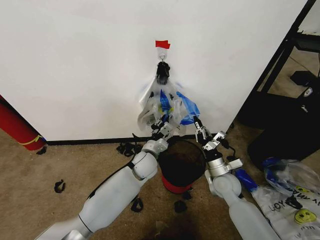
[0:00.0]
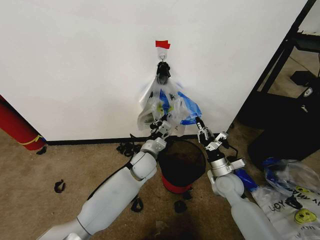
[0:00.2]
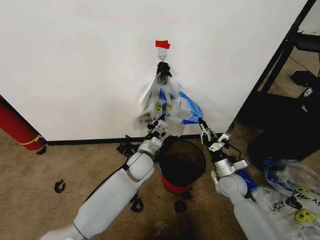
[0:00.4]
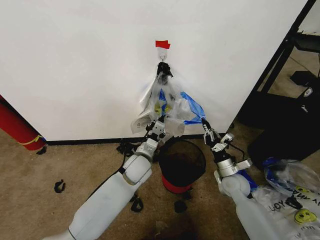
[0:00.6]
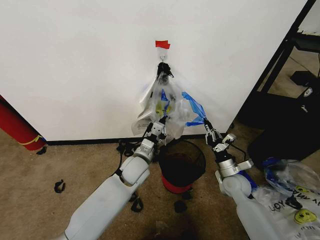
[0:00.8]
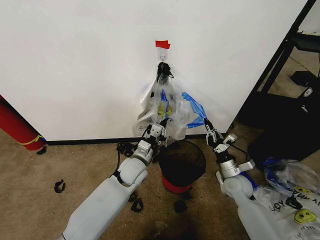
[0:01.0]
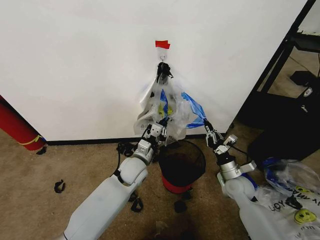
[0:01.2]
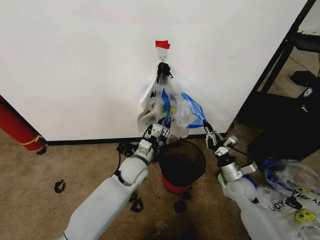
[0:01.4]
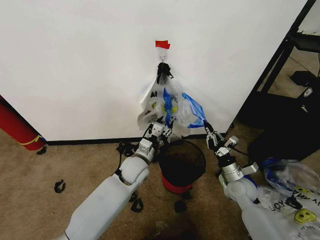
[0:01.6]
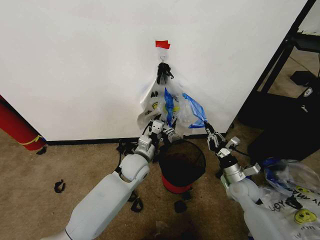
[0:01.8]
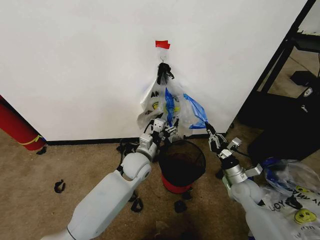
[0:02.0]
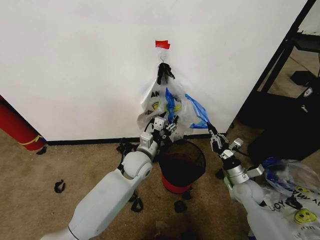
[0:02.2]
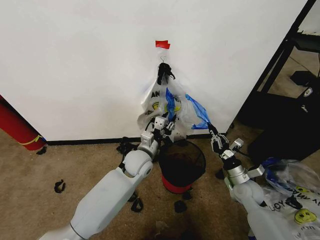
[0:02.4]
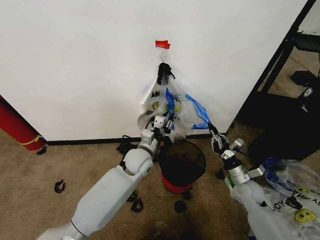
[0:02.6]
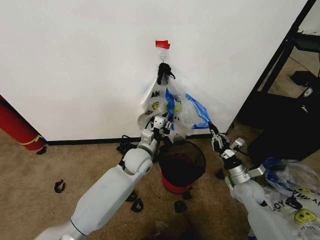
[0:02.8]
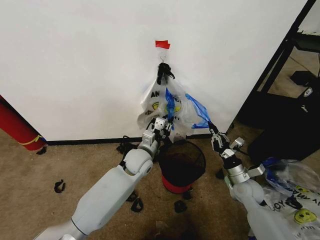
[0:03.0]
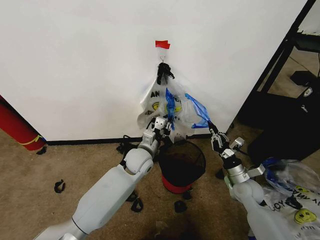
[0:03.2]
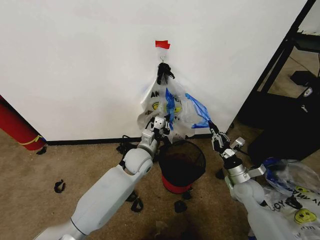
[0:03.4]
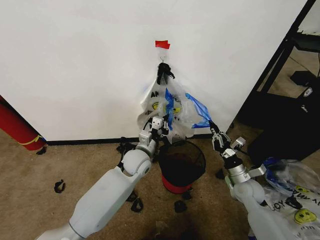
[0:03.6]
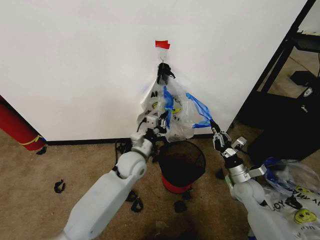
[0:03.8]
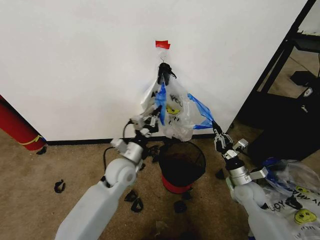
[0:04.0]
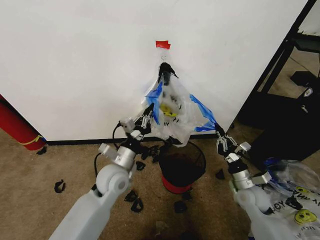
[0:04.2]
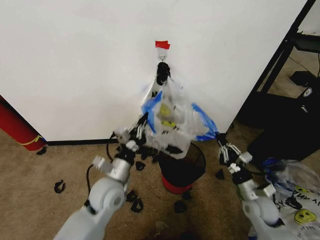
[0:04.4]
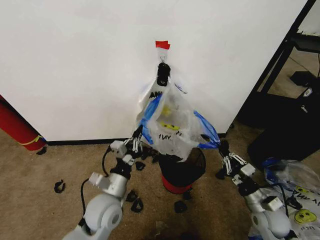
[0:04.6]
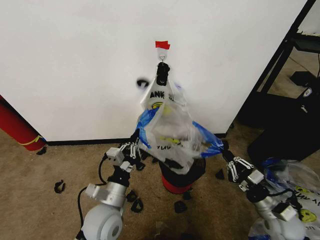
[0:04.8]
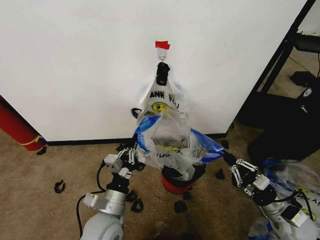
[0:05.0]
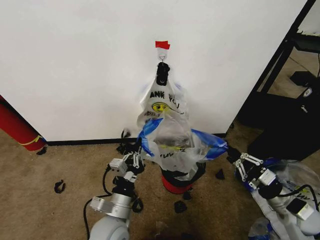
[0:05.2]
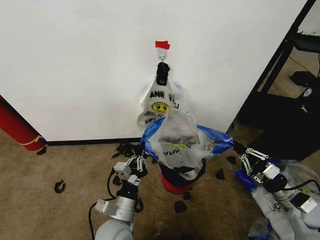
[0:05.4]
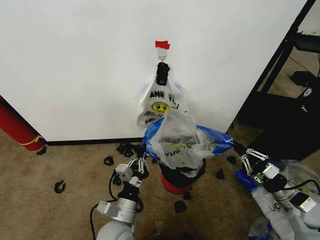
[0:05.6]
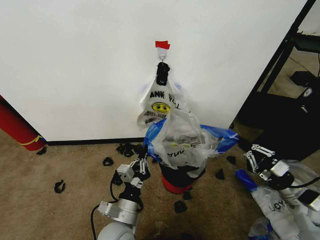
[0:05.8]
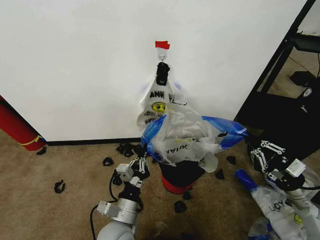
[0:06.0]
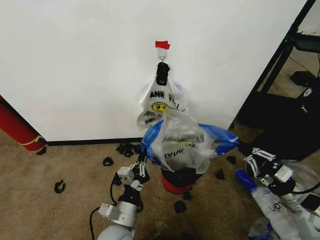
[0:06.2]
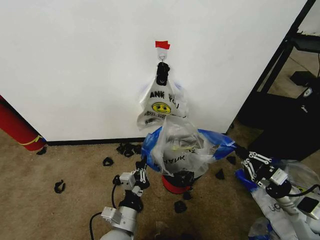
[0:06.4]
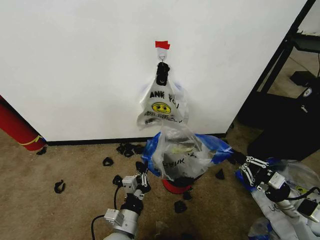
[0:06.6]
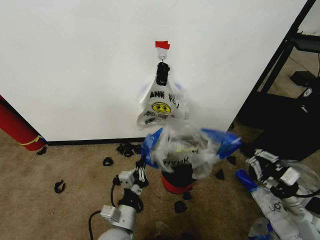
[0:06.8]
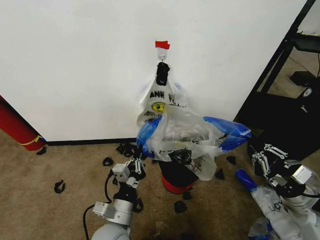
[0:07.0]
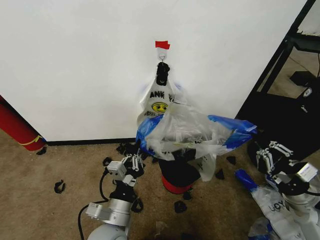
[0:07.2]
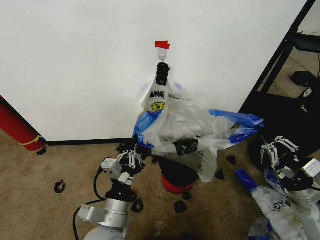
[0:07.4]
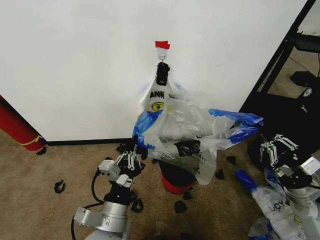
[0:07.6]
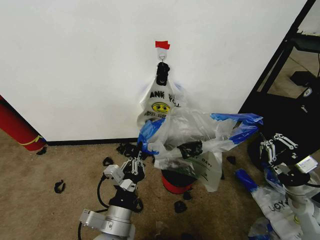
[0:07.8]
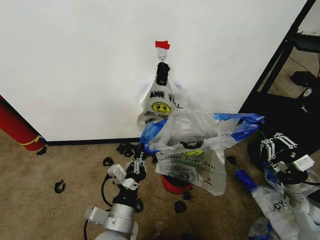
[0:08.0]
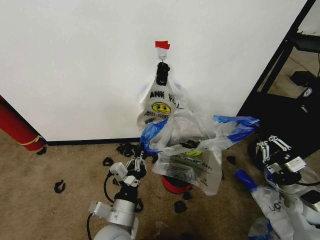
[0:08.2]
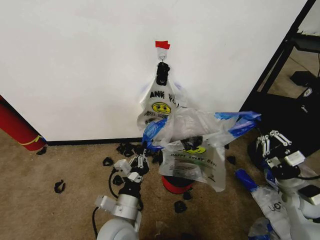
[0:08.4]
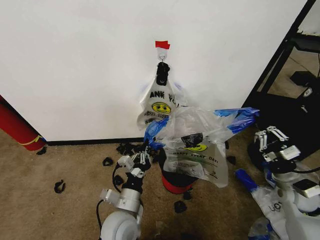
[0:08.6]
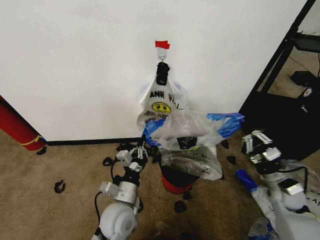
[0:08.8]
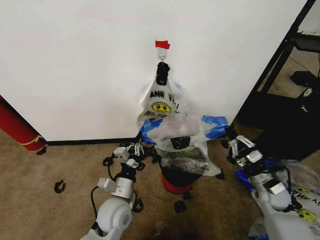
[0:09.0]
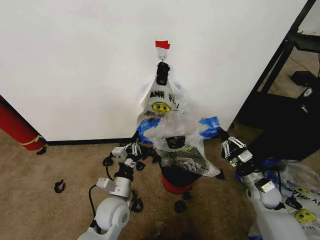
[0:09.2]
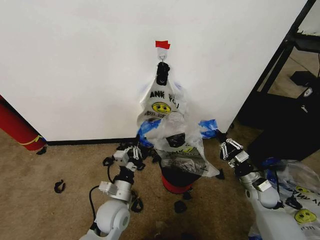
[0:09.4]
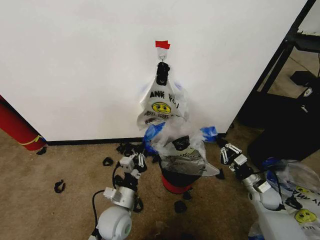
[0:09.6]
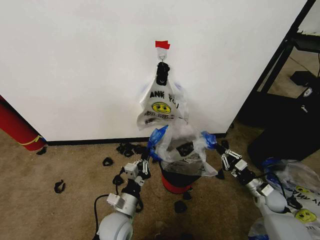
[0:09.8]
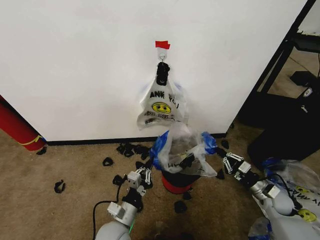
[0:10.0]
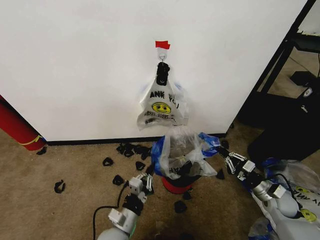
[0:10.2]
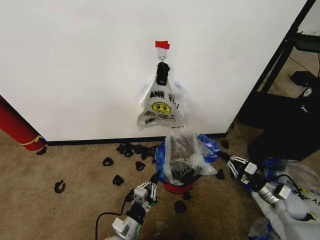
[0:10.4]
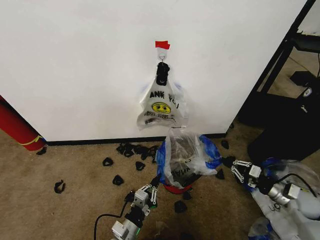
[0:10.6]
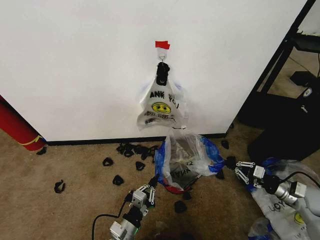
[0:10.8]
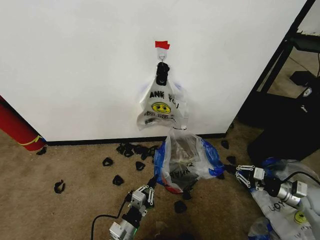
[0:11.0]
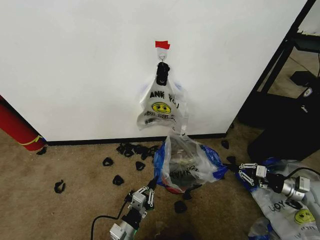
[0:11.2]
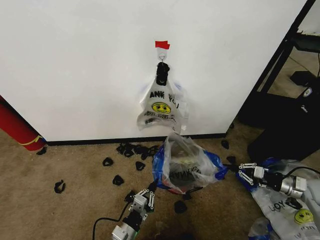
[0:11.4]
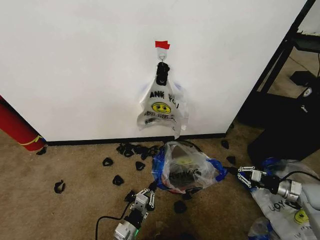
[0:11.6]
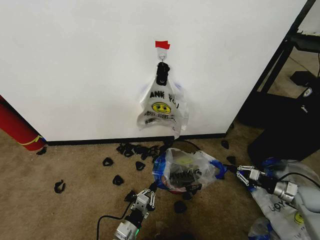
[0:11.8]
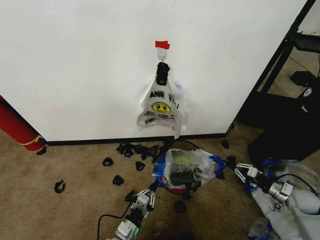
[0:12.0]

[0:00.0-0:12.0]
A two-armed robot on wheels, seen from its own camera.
Task of the whole recording: Pick up the garbage bag from the wall and place it over the trash bin.
0:00.0 to 0:01.6: The left gripper opens up. The right gripper moves to the right, about 5 cm.
0:01.6 to 0:03.0: There are only small adjustments of the grippers.
0:03.0 to 0:04.4: The right gripper goes some 5 cm backward, while the left gripper moves backward and to the left, approximately 15 cm.
0:04.4 to 0:06.0: The right gripper is displaced upward and to the right by some 15 cm; the left gripper shifts about 10 cm backward.
0:06.0 to 0:07.6: The left gripper heads upward, covering about 5 cm.
0:07.6 to 0:09.0: The right gripper is displaced downward and forward by roughly 10 cm. The left gripper shifts roughly 10 cm forward and downward.
0:09.0 to 0:10.4: The right gripper shifts some 5 cm to the right. The left gripper travels backward and downward by roughly 10 cm.
0:10.4 to 0:12.0: The left gripper shifts by roughly 5 cm. The right gripper goes roughly 5 cm to the right.

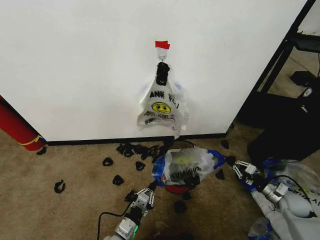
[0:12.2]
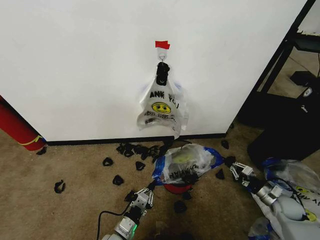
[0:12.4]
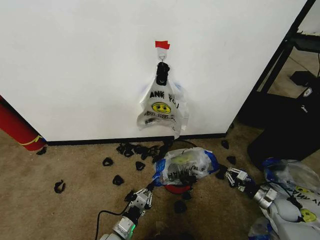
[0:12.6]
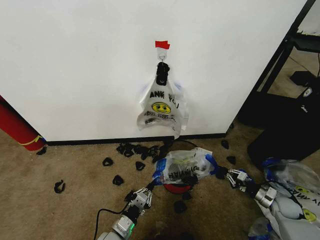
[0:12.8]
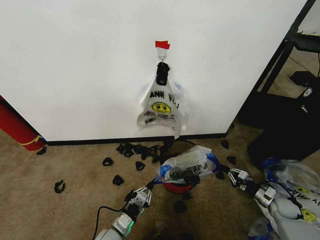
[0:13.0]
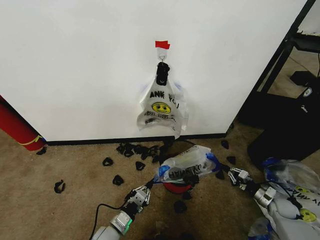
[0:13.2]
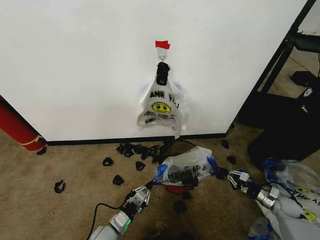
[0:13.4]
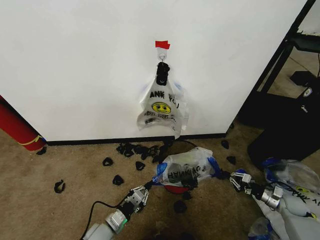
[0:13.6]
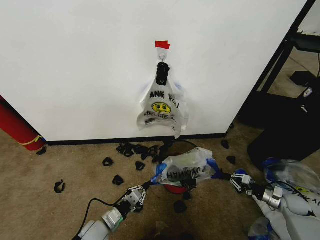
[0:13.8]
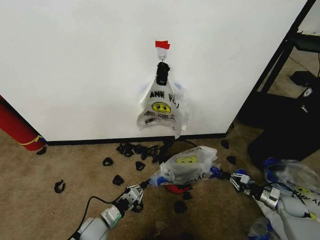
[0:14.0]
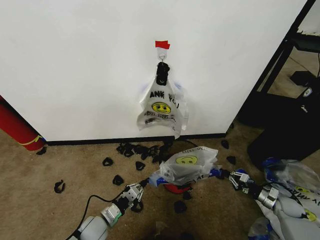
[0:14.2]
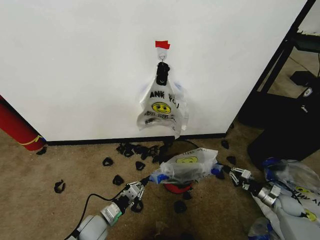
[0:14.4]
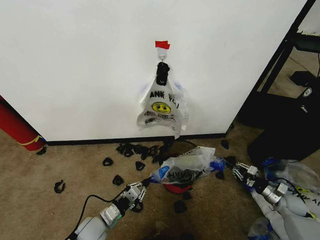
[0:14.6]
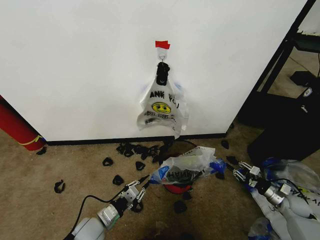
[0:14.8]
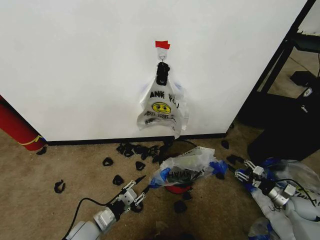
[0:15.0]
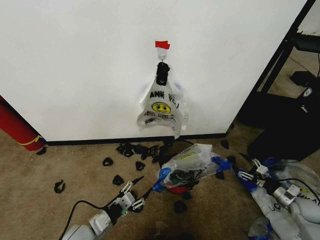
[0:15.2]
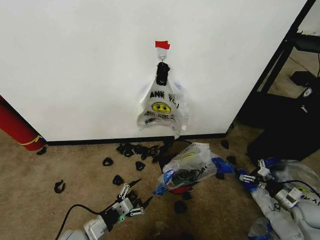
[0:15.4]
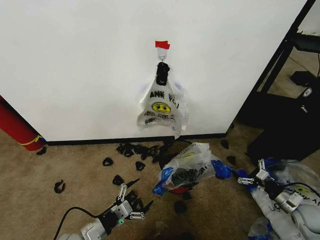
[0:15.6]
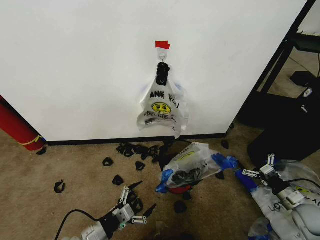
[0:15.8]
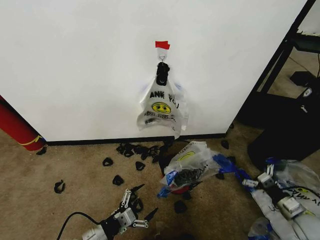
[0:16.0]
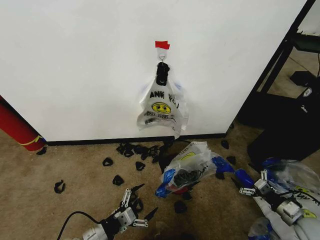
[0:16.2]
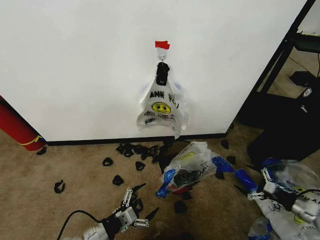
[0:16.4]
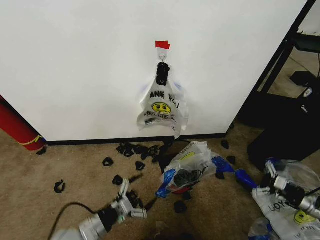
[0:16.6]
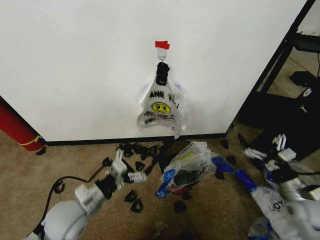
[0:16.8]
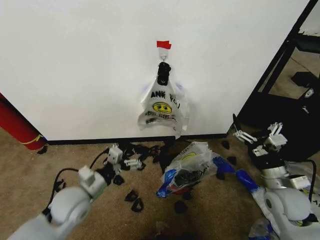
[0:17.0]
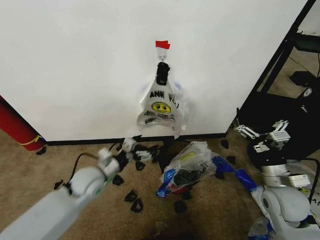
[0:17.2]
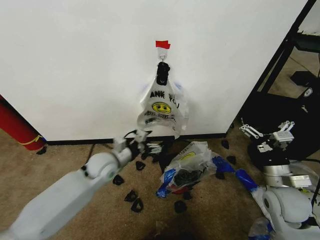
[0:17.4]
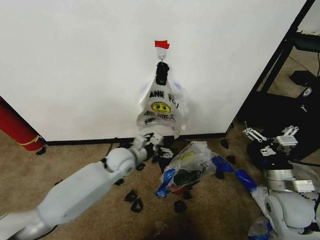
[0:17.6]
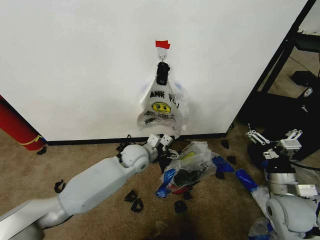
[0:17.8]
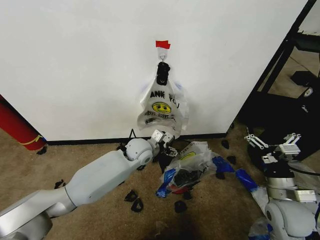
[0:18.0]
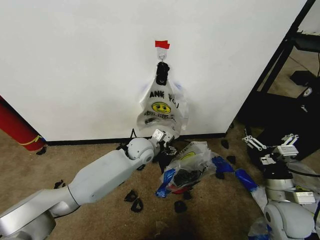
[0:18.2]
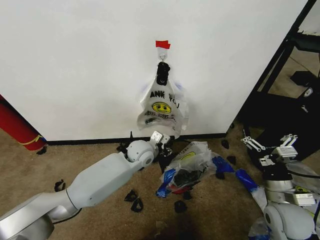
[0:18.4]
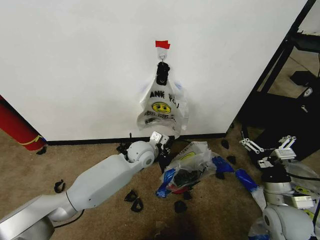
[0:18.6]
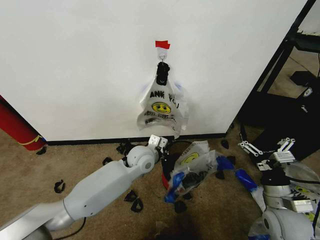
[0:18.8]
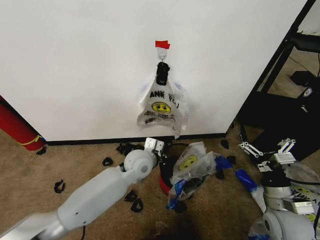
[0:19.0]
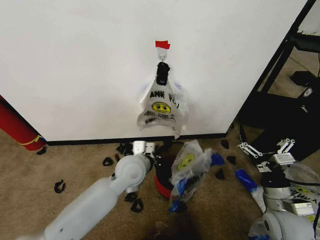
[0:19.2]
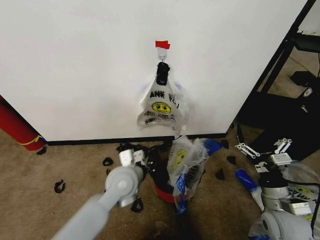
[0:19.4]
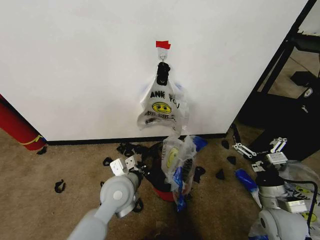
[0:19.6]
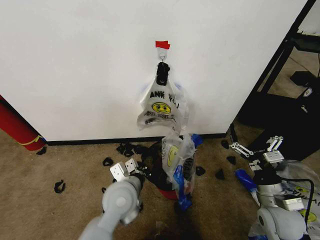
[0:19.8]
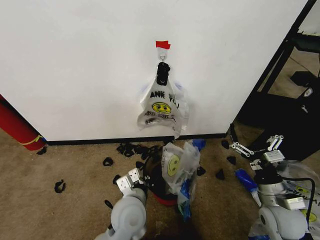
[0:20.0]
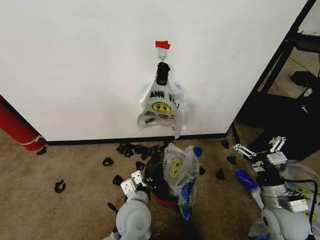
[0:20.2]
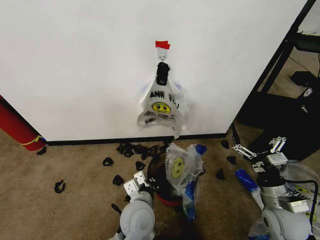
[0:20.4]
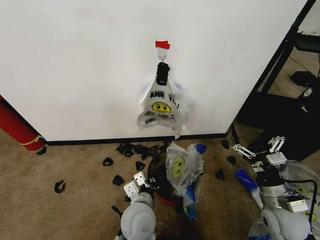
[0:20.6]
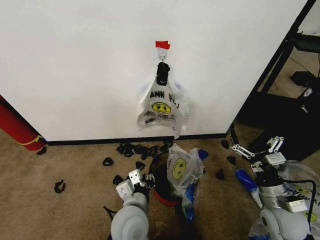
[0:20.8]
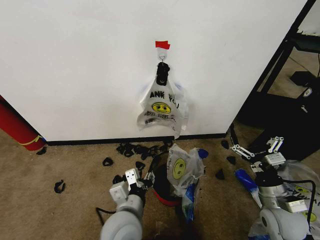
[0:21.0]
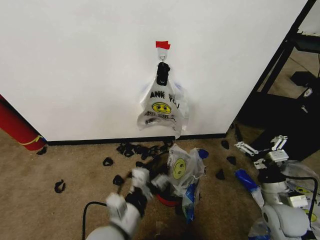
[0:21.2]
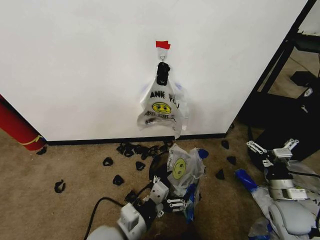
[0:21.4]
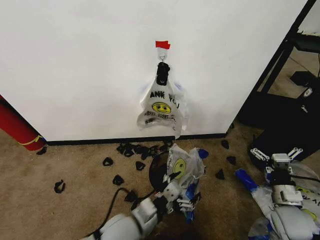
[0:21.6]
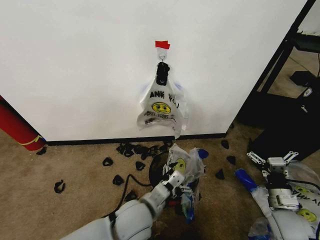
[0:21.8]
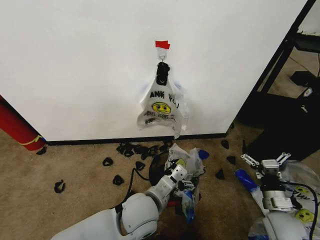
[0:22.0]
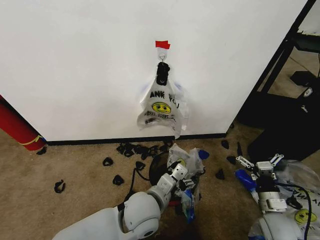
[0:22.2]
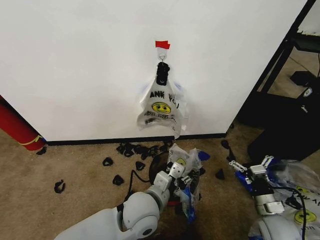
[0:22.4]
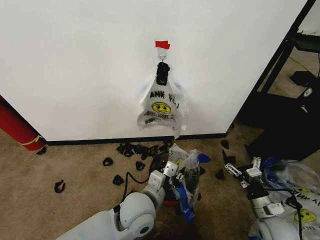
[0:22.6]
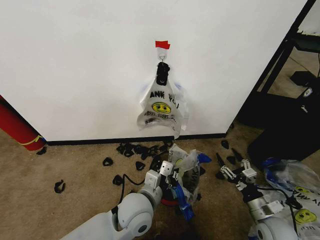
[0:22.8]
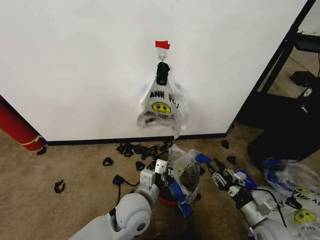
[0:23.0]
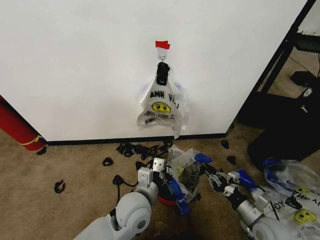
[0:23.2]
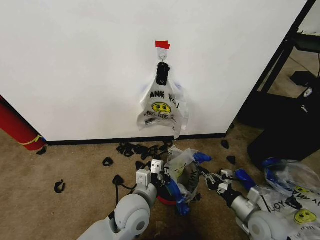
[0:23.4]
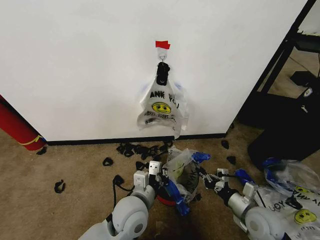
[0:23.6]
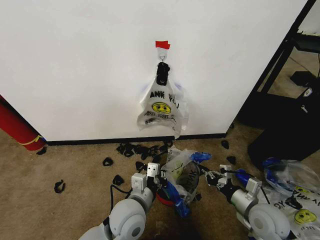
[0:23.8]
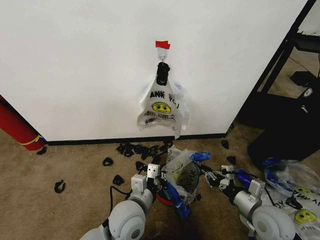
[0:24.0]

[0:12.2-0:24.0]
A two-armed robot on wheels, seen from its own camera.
Task of the whole recording: Pick up the garbage bag from the wall and place it over the trash bin.
0:12.2 to 0:13.6: The left gripper travels to the left by roughly 5 cm.
0:13.6 to 0:15.2: The right gripper shifts by about 5 cm, and opens; the left gripper shifts approximately 5 cm upward, and opens its fingers.
0:15.2 to 0:16.6: The left gripper goes about 5 cm upward, and opens its fingers. Meanwhile the right gripper is displaced upward by some 10 cm.
0:16.6 to 0:18.2: The right gripper shifts approximately 20 cm to the left. Meanwhile the left gripper goes approximately 35 cm forward and to the right.
0:18.2 to 0:19.6: The left gripper is displaced backward by some 15 cm, and closes.
0:19.6 to 0:21.0: The left gripper heads backward, covering about 10 cm, and opens.
0:21.0 to 0:22.6: The left gripper is displaced forward by about 5 cm, and opens and closes again, while the right gripper travels downward by about 10 cm.
0:22.6 to 0:24.0: The right gripper goes approximately 5 cm upward, and closes.
